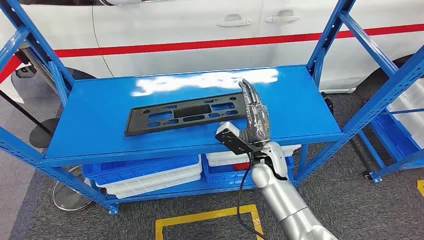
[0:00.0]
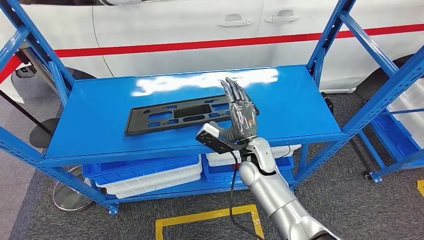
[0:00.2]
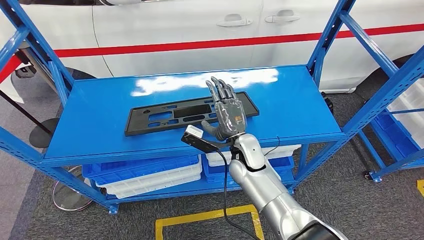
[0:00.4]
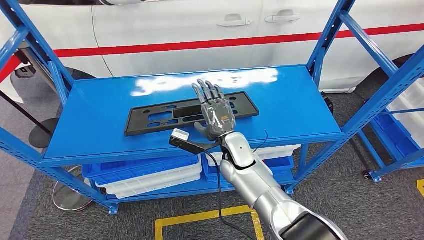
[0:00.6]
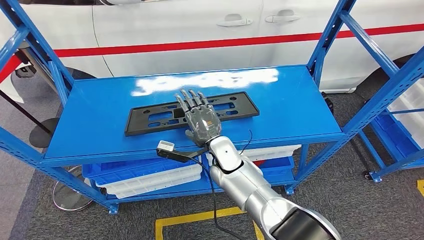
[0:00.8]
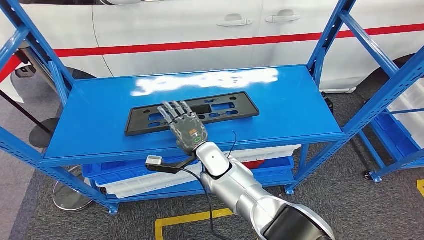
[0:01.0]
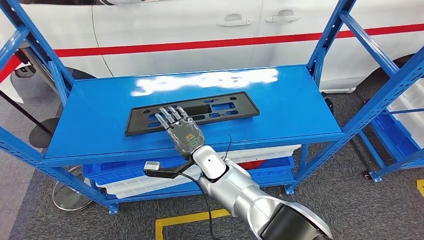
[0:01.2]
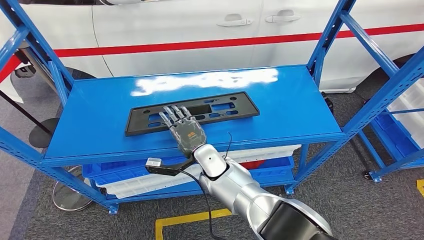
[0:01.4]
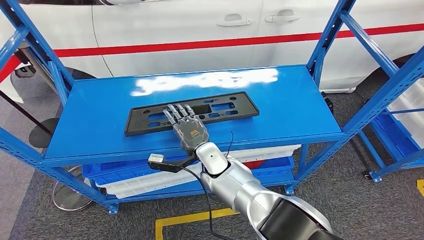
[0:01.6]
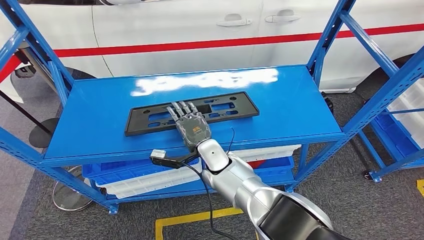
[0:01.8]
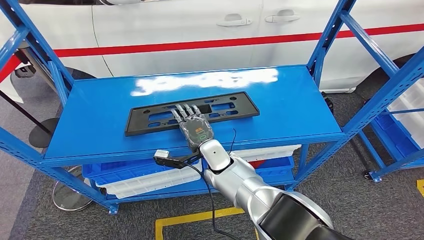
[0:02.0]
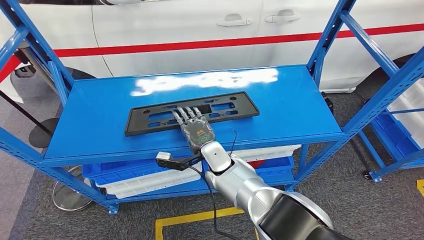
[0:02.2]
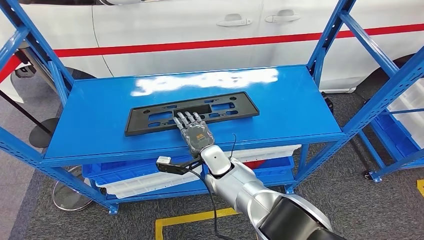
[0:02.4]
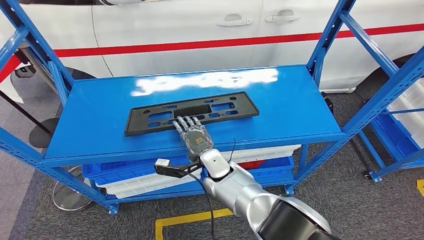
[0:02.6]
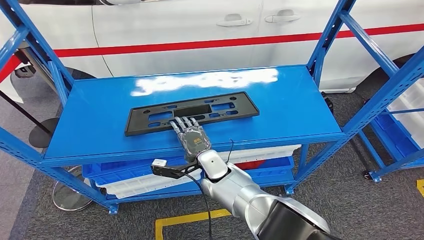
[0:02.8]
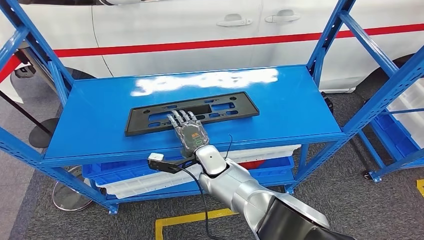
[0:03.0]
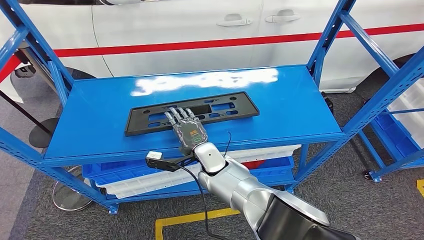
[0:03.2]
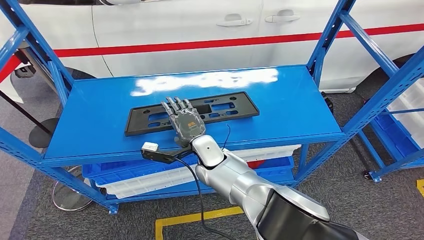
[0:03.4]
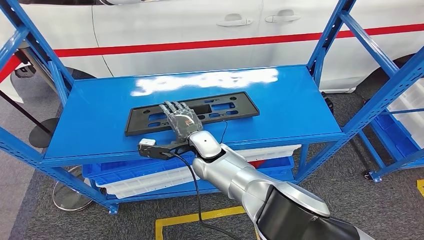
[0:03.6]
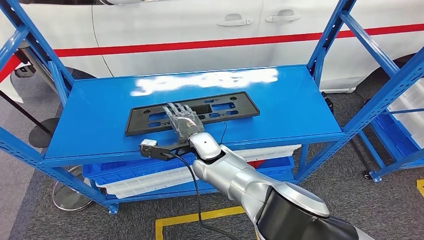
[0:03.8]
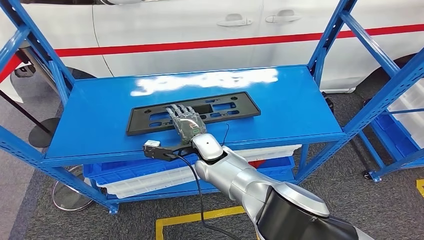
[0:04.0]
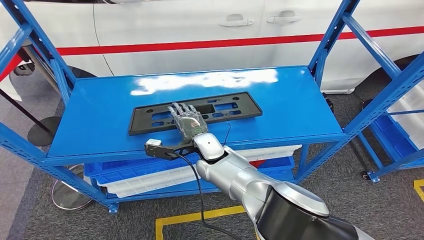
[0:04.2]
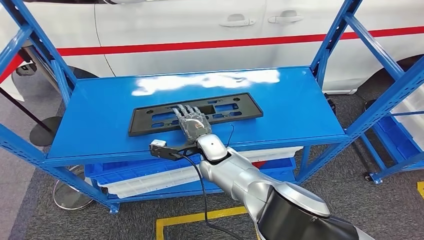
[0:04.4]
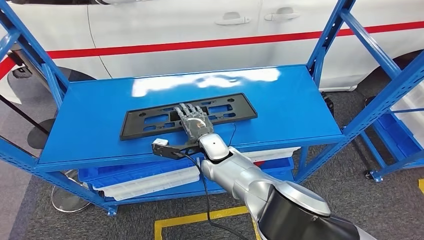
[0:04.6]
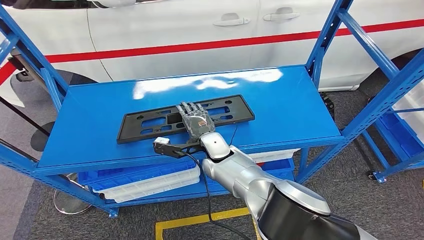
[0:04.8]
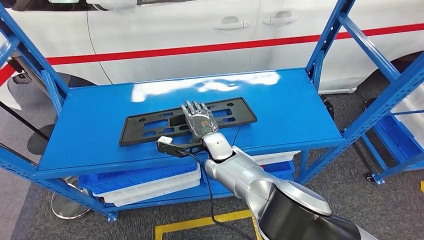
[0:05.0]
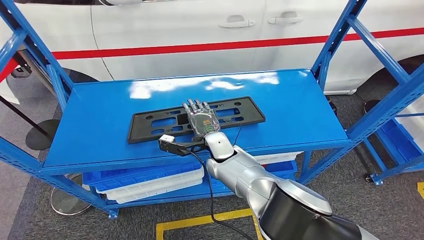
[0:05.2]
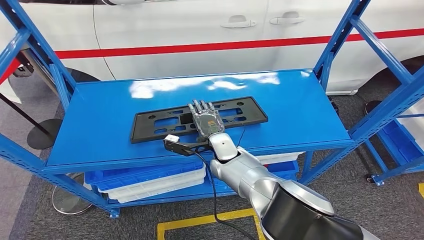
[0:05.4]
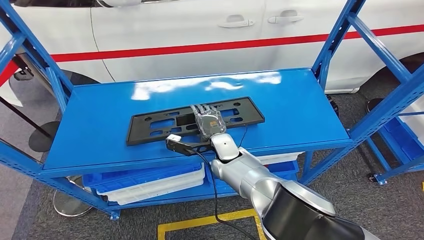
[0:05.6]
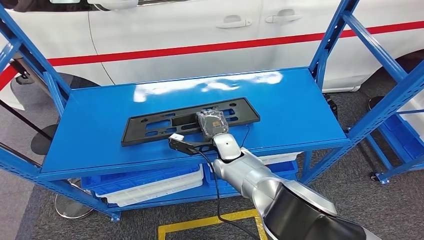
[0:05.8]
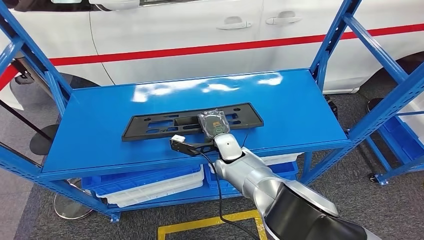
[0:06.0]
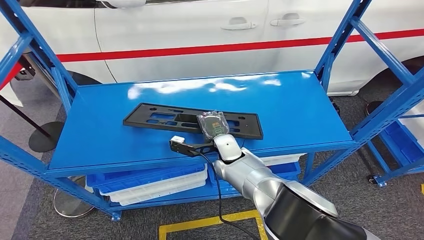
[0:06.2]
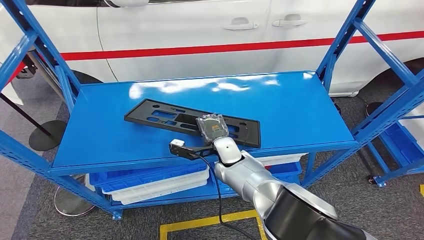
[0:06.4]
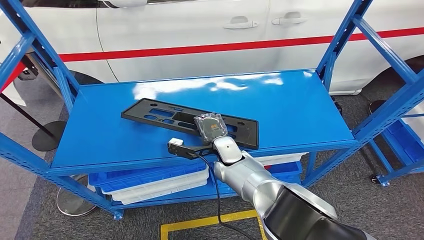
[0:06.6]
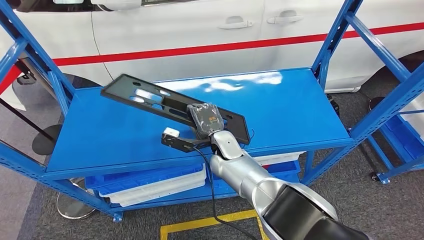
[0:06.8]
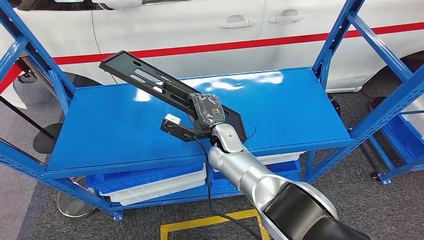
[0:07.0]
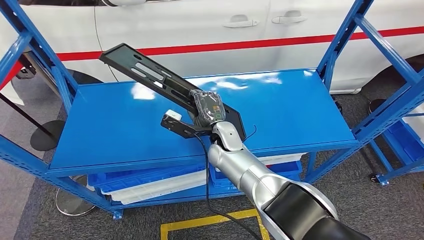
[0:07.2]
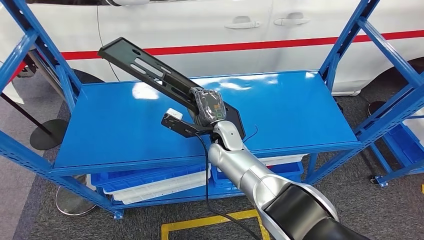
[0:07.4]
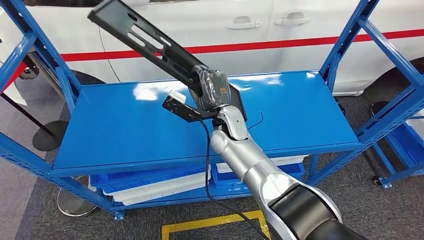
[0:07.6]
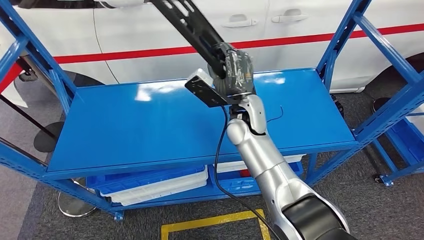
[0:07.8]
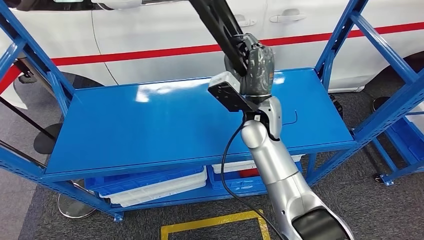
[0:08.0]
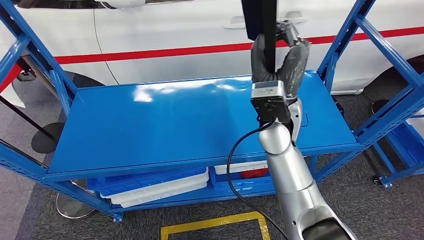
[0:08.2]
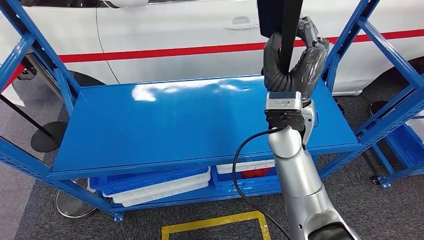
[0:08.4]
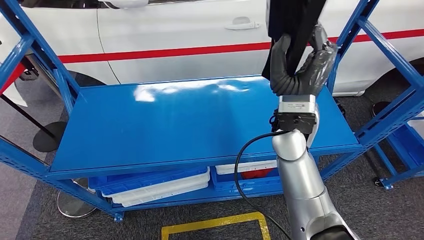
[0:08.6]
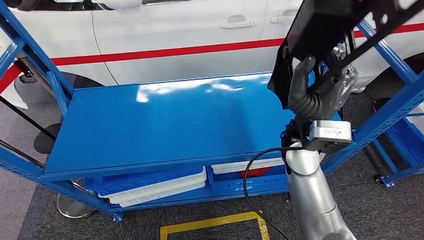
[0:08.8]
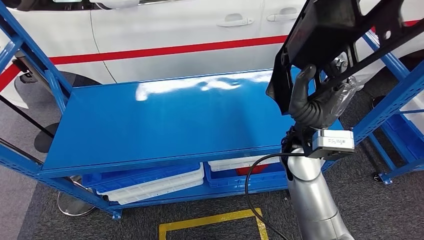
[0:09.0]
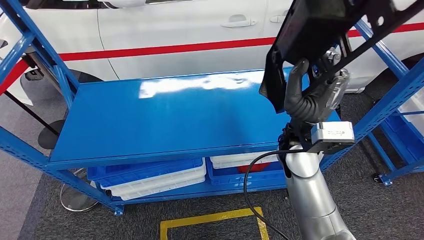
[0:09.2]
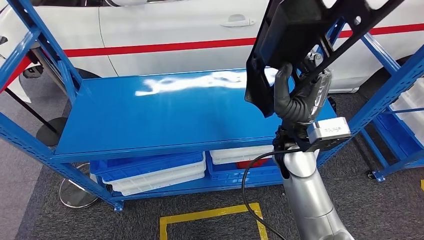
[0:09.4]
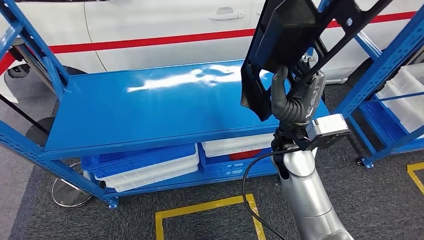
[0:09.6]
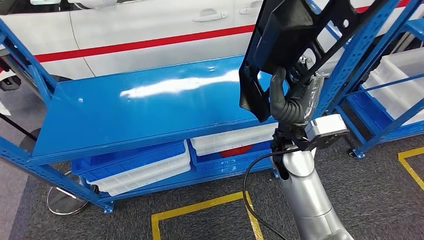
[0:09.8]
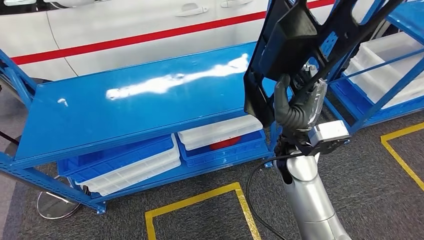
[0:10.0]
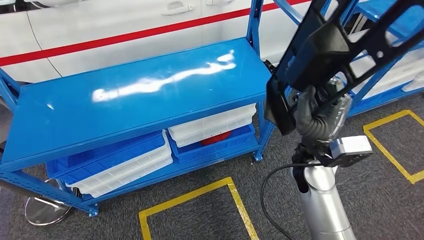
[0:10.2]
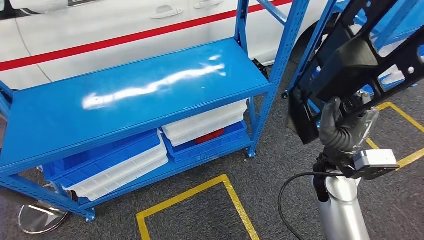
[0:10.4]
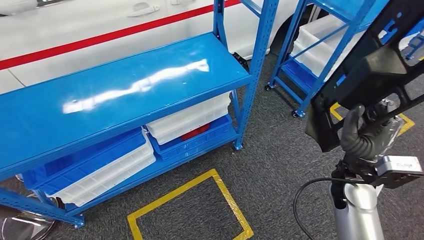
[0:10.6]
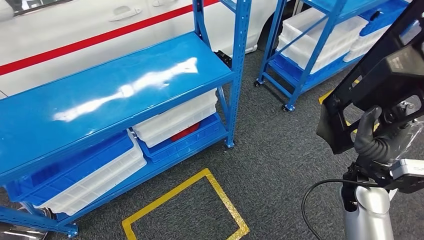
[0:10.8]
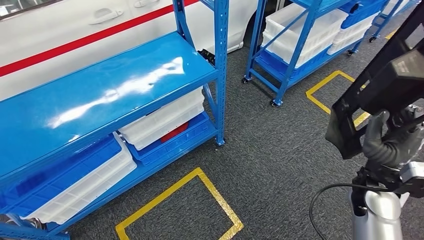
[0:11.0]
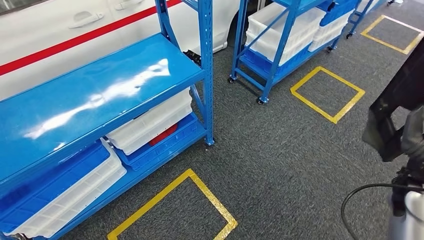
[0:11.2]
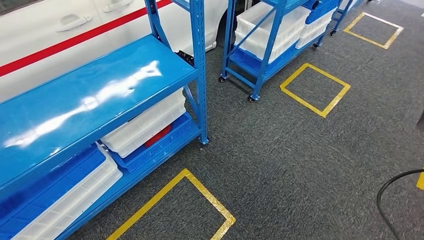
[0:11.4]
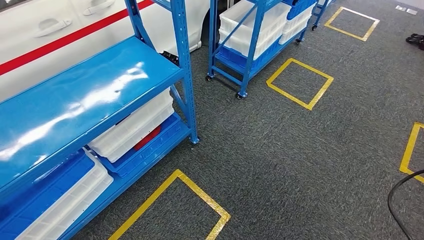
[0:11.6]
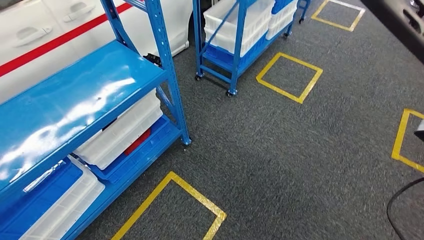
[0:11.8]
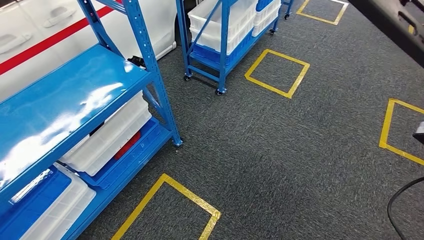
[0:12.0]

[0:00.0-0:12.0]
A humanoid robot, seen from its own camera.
Step, 0:00.0 to 0:11.8: Pick up the large material from the shelf.
0:01.6 to 0:04.4: The hands stay close to where they were, moving slightly.

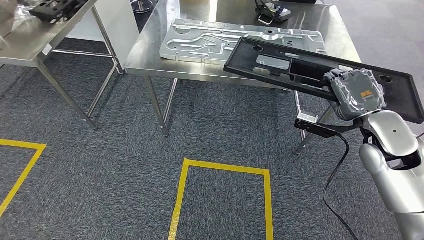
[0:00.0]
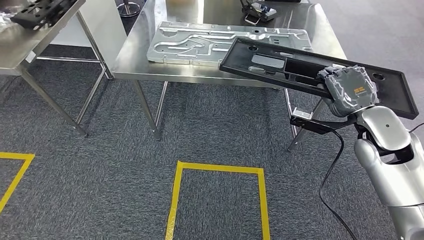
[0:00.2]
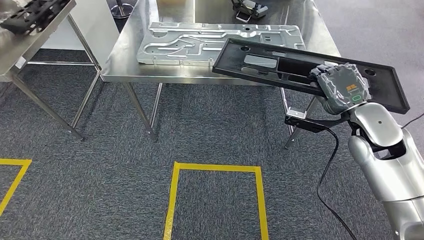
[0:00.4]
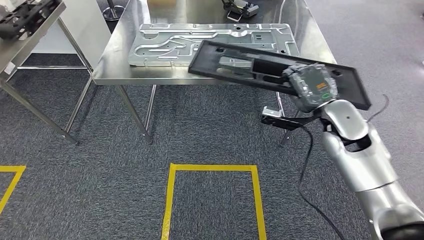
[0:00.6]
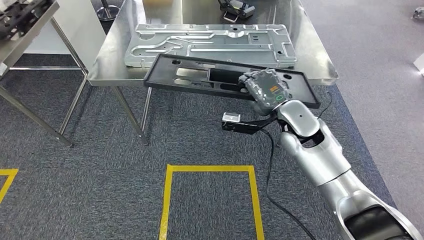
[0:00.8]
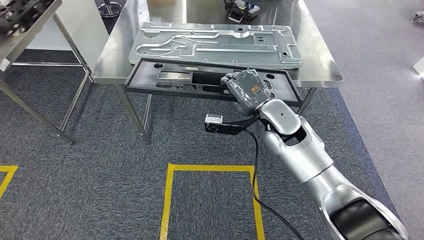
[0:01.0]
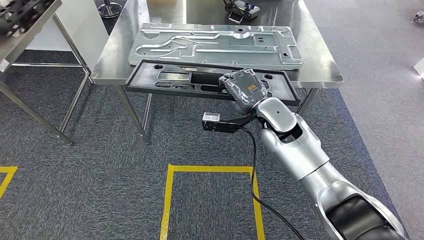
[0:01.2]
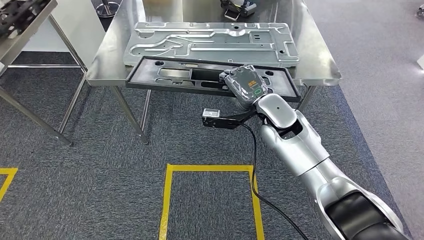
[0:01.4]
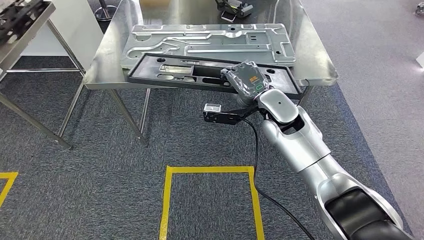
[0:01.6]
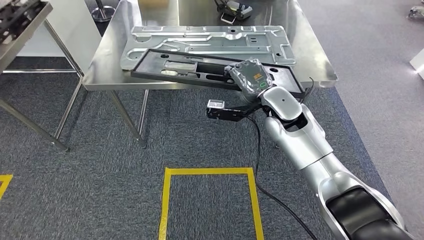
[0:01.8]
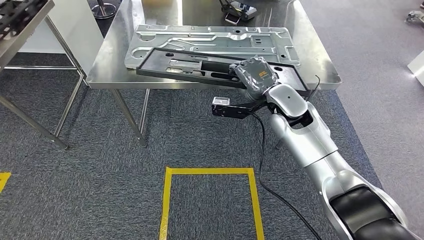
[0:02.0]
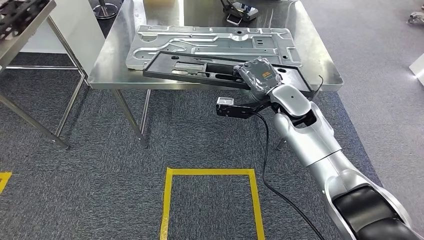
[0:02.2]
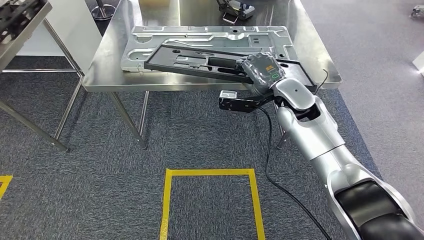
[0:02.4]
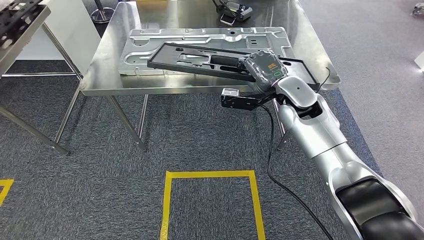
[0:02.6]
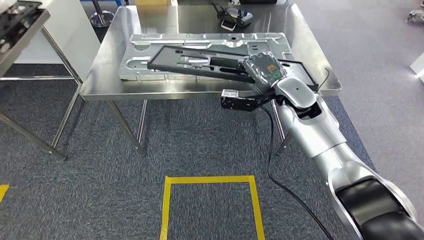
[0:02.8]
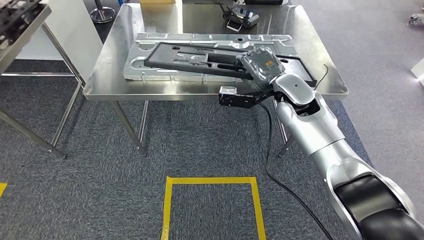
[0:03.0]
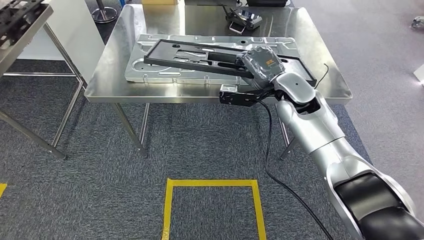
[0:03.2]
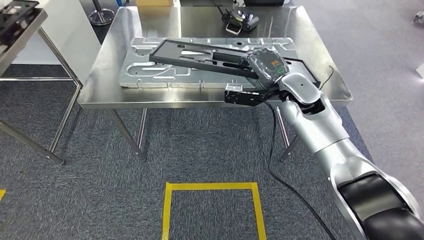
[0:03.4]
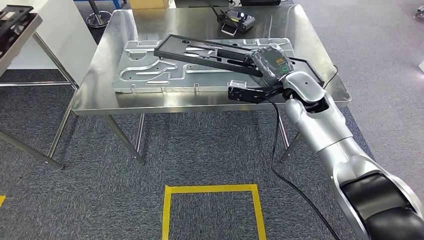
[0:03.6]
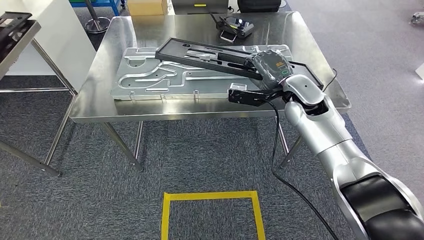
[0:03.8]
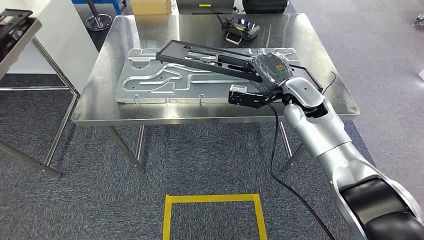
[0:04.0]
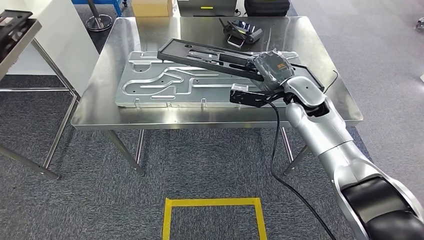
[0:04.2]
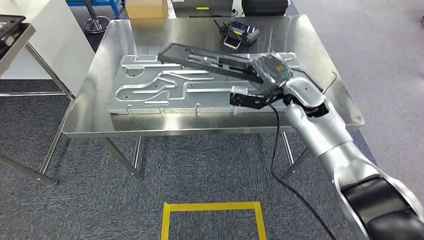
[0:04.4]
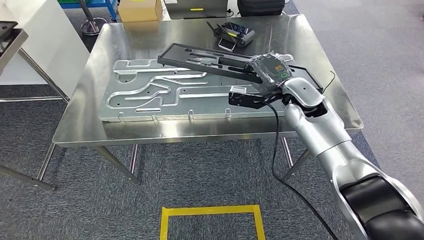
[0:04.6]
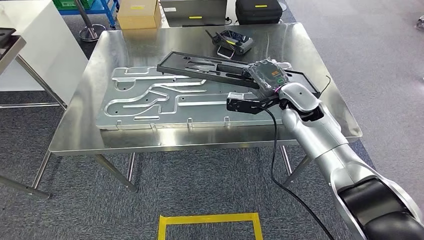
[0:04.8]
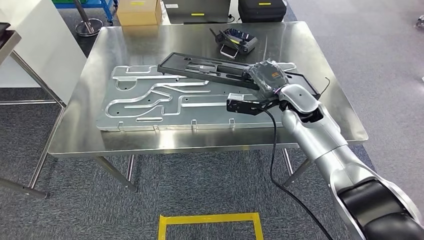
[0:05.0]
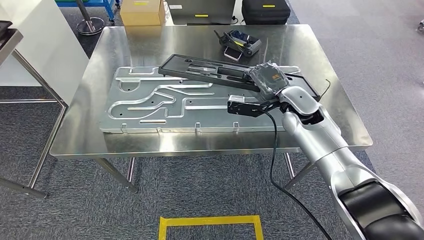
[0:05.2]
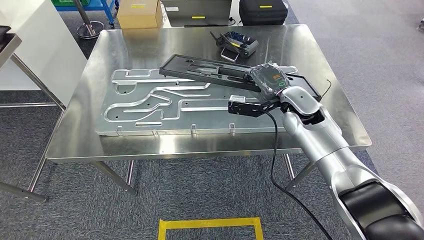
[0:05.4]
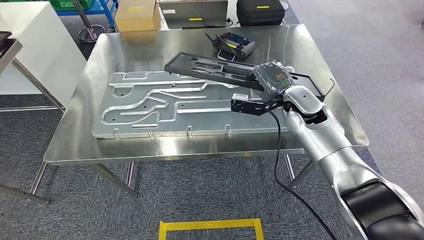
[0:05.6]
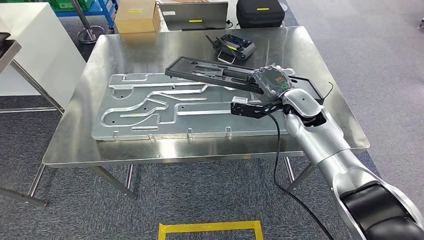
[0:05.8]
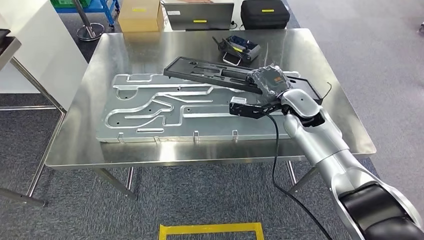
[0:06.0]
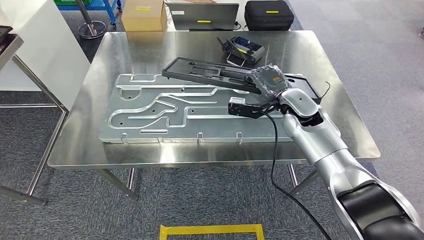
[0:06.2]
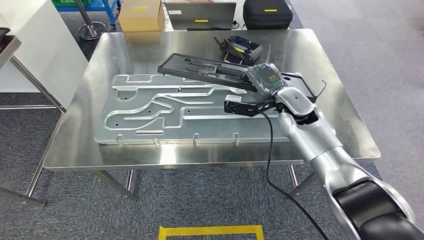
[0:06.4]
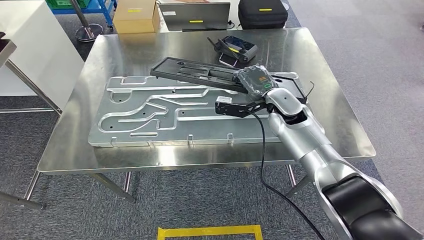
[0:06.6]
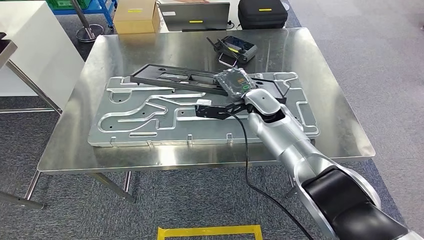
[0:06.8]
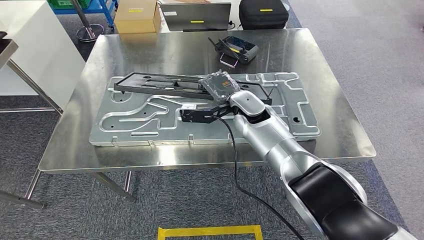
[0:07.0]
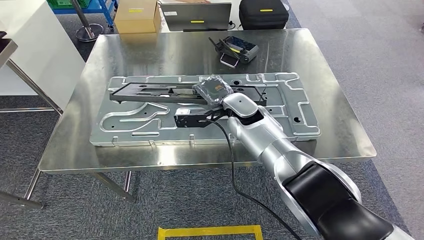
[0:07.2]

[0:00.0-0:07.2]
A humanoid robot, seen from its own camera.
Step, 0:00.0 to 0:02.0: Move the large material to the workbench.
